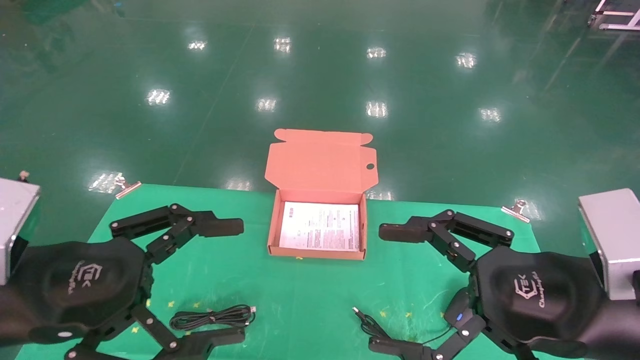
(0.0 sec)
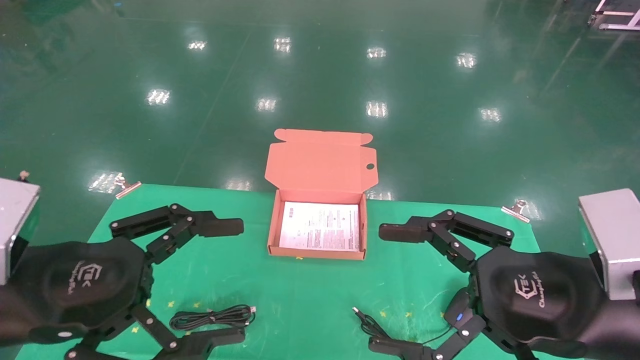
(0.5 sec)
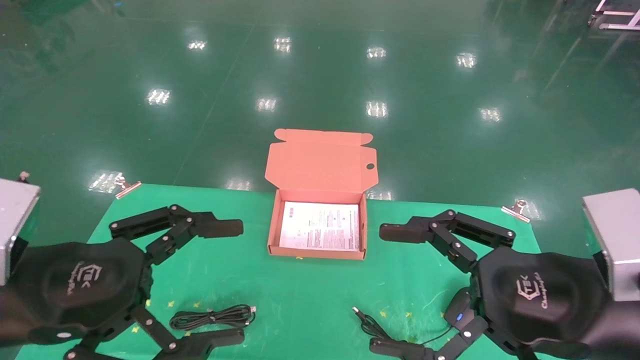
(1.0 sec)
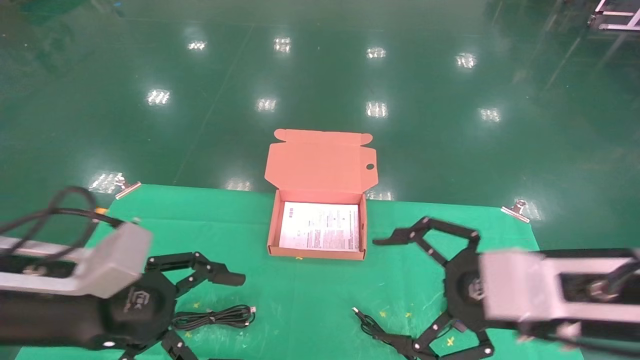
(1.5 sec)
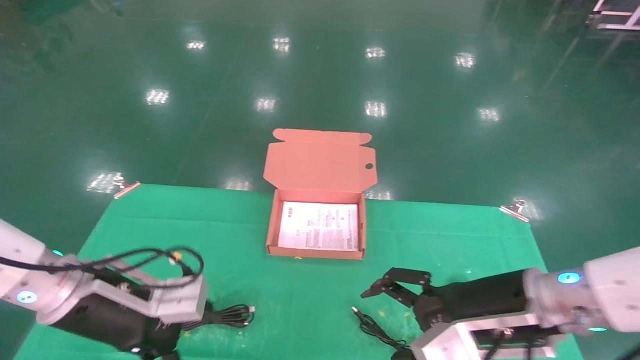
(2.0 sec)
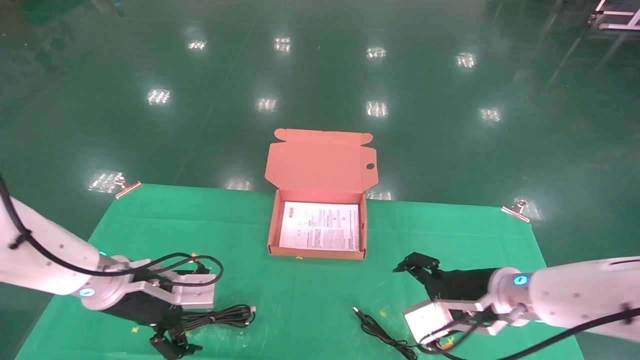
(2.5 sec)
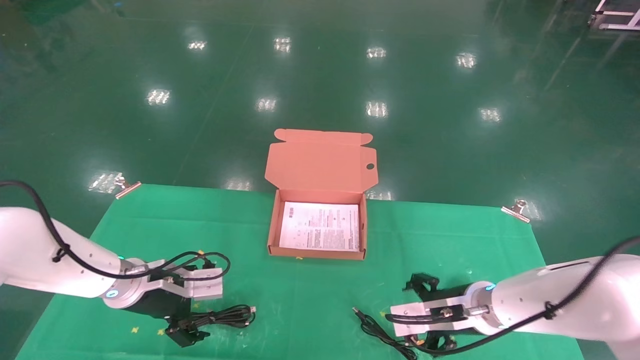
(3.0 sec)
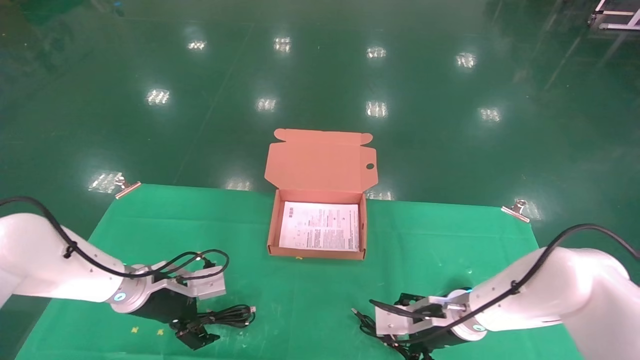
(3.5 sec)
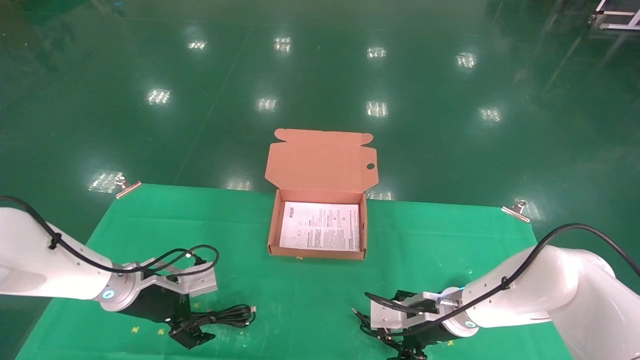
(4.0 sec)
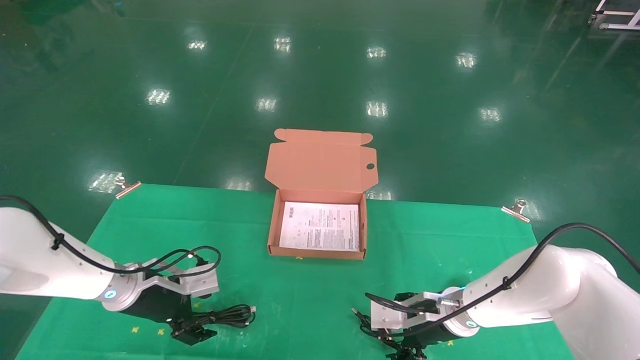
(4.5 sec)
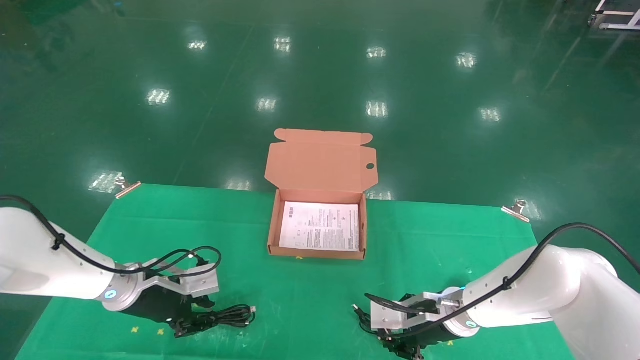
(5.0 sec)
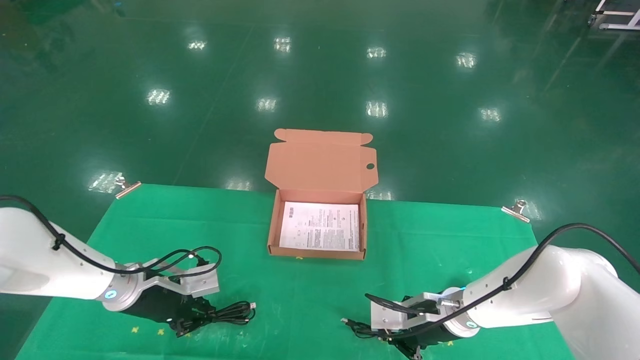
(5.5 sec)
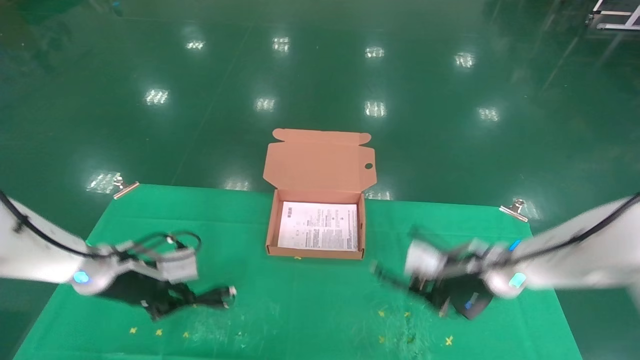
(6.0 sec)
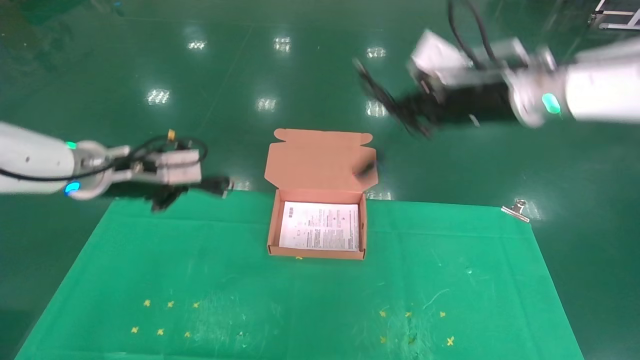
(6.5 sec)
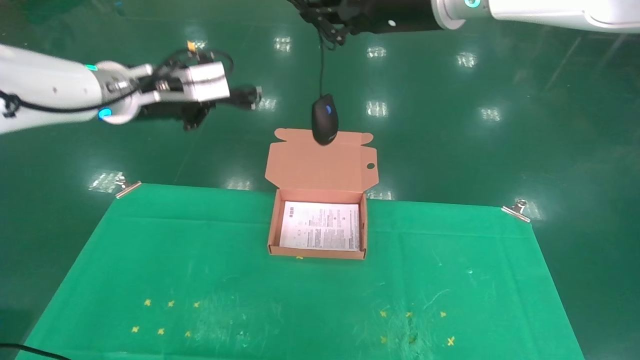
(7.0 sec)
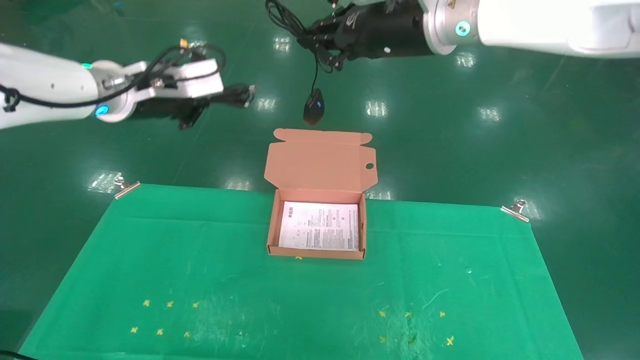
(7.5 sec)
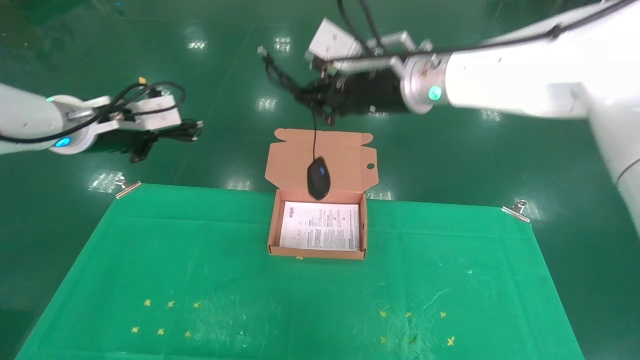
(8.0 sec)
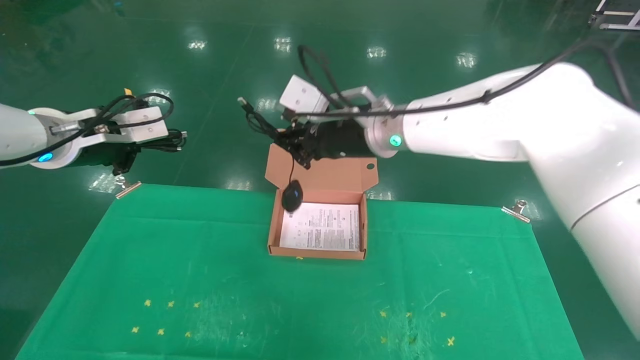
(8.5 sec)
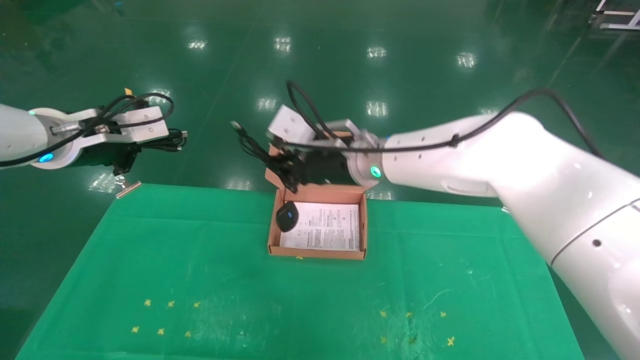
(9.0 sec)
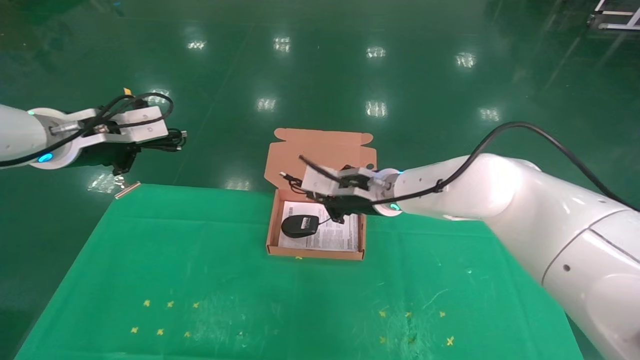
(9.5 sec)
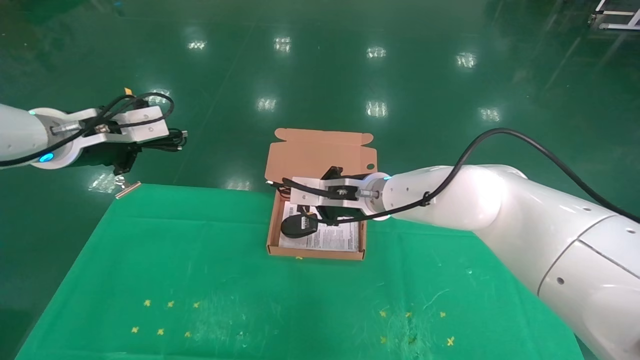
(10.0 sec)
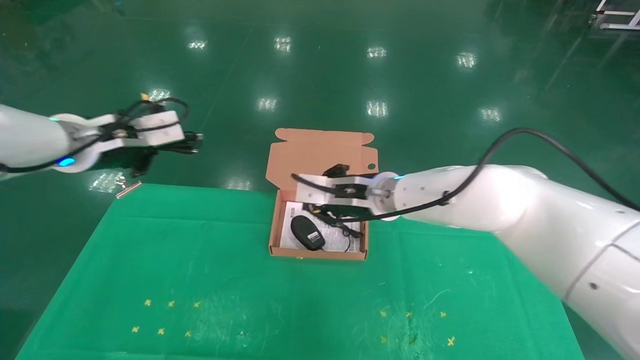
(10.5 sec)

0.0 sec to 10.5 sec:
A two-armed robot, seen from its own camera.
Task of the whole recording: grasp data cable left put into box grasp mouse right put into box.
Step, 1.0 sec to 6.0 sec: Grab and pick up both the mouse and power cord from the accessory packaging area at the same time.
0.0 sec to 2.0 sec: The grippers both shift forward and downward by about 10 cm.
2.0 sec to 4.0 sec: Both grippers move forward and downward, roughly 15 cm.
4.0 sec to 6.5 sec: The left gripper travels upward by approximately 20 cm, and closes its fingers. Meanwhile the right gripper shifts about 30 cm upward, and closes up.
6.5 sec to 8.5 sec: The left gripper shifts about 5 cm upward. The right gripper heads to the left, covering about 15 cm.
8.5 sec to 10.5 sec: The right gripper travels downward by about 10 cm.

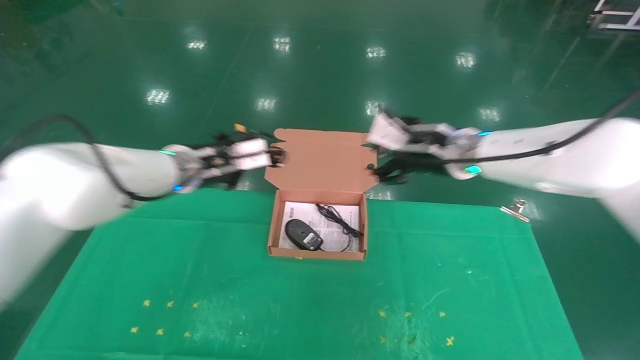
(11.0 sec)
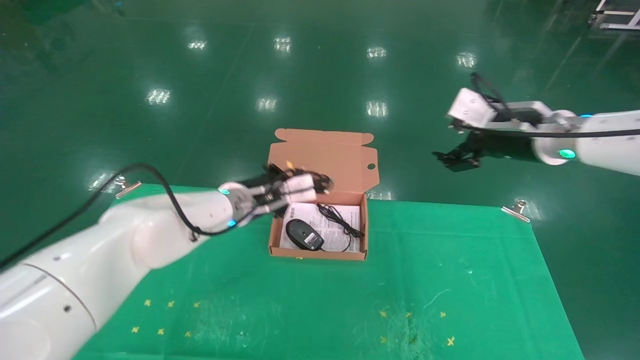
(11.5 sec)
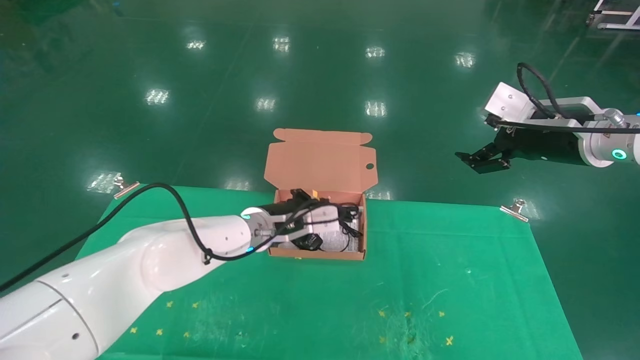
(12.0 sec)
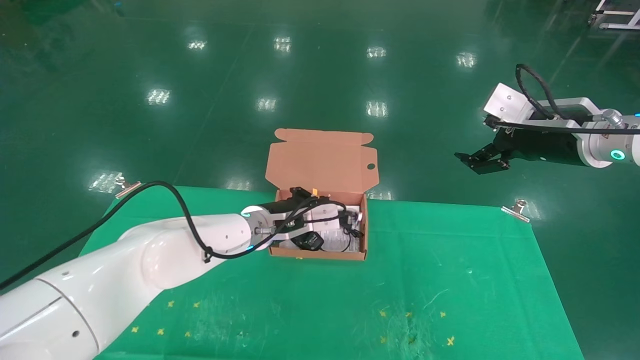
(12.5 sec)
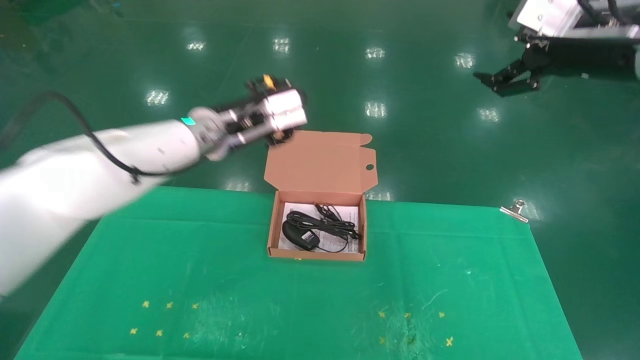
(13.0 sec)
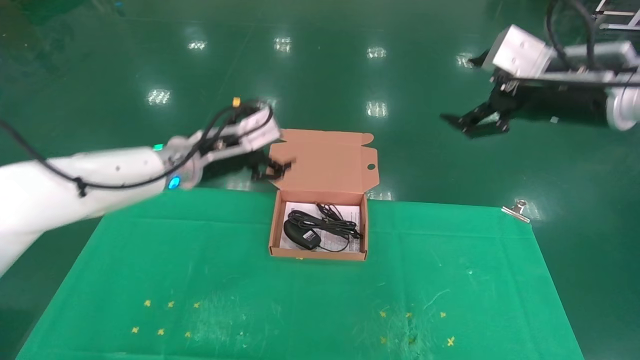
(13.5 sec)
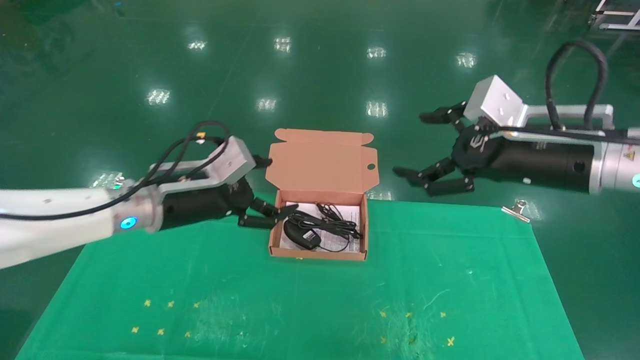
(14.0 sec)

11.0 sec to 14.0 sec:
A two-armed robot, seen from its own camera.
Task of the whole recording: grasp data cable left put into box grasp mouse right put into box.
Step, 11.0 sec to 13.0 sec: Place the mouse and power cord into the box.
11.0 sec to 12.5 sec: The right gripper heads to the right, covering some 15 cm, and opens up. Meanwhile the left gripper is displaced to the right and downward by about 15 cm.
12.5 sec to 14.0 sec: The left gripper travels to the left, backward and upward by roughly 15 cm, and opens its fingers. The right gripper travels backward and to the left by roughly 10 cm, and reaches approximately 5 cm upward, then returns.

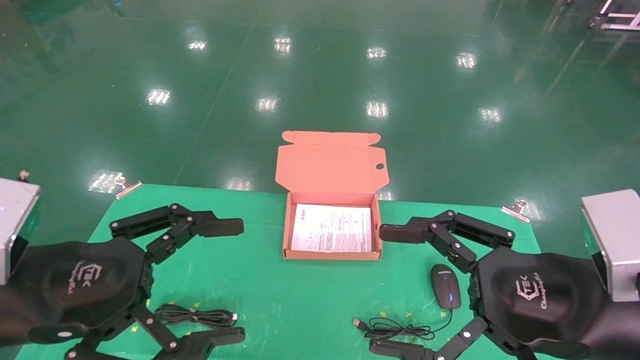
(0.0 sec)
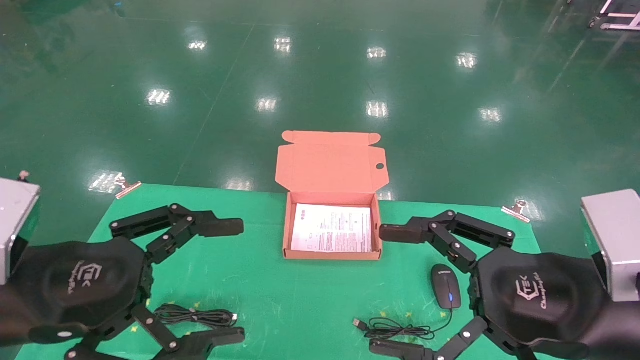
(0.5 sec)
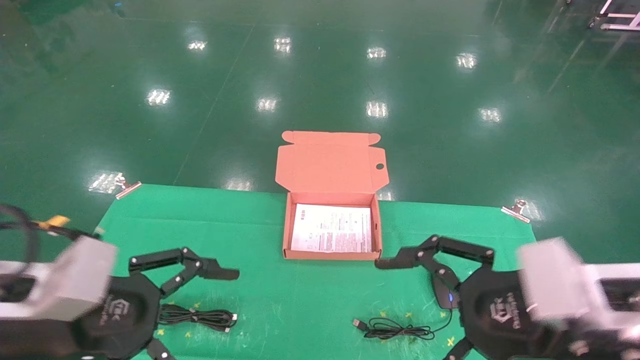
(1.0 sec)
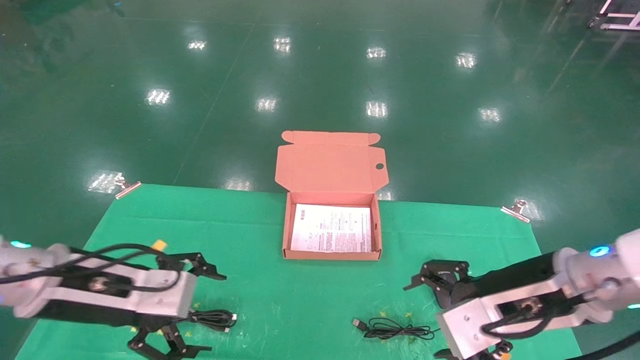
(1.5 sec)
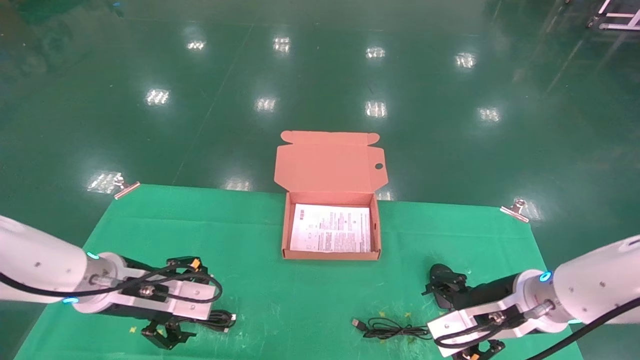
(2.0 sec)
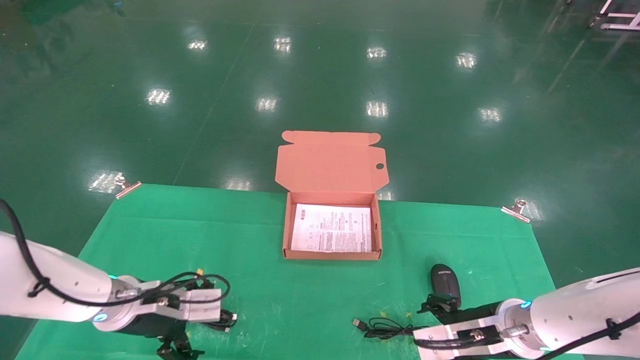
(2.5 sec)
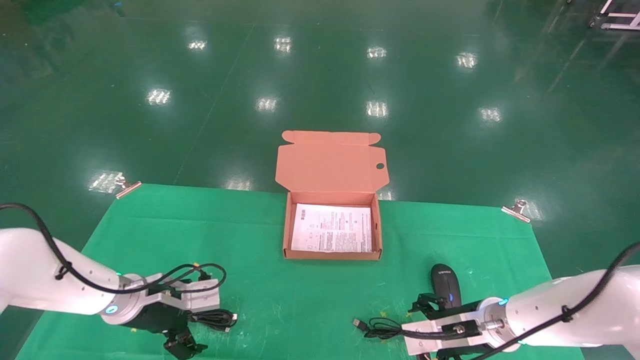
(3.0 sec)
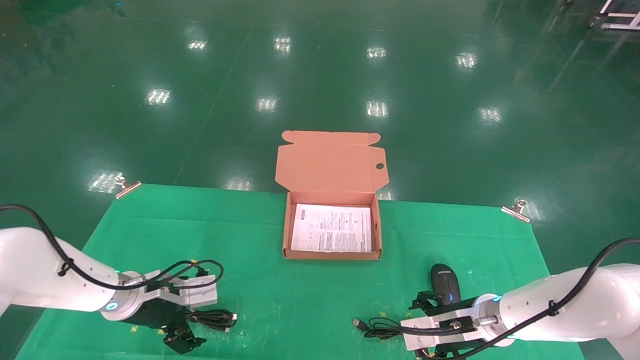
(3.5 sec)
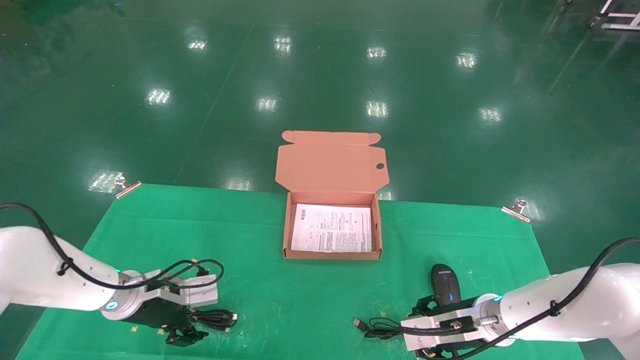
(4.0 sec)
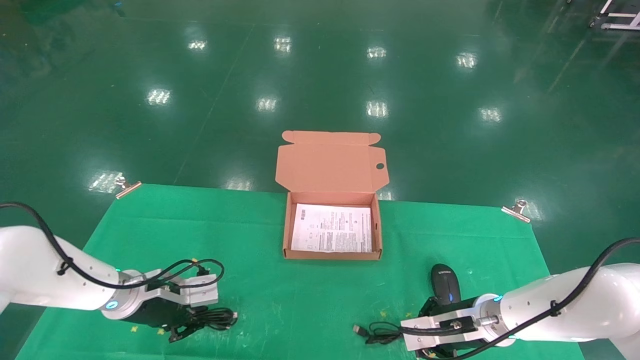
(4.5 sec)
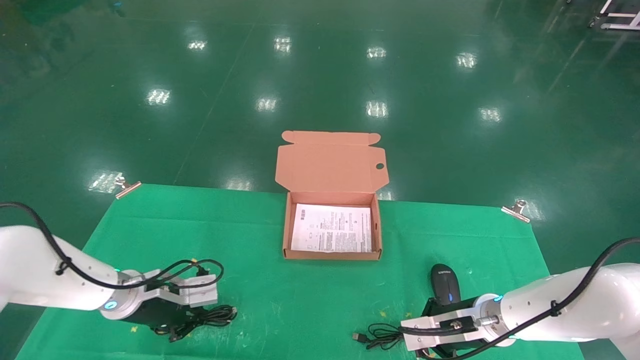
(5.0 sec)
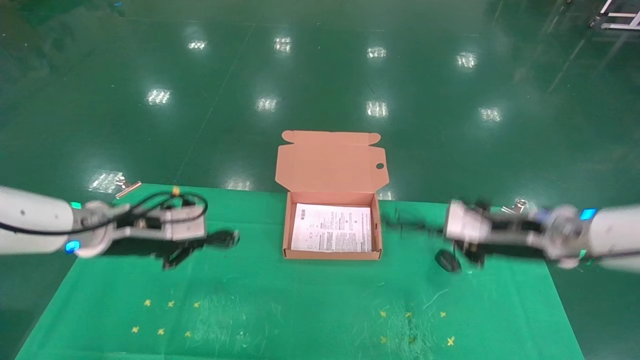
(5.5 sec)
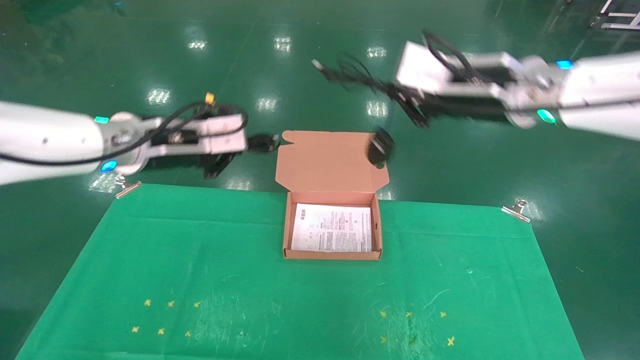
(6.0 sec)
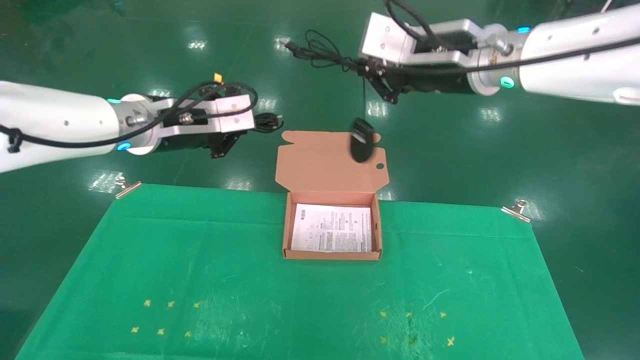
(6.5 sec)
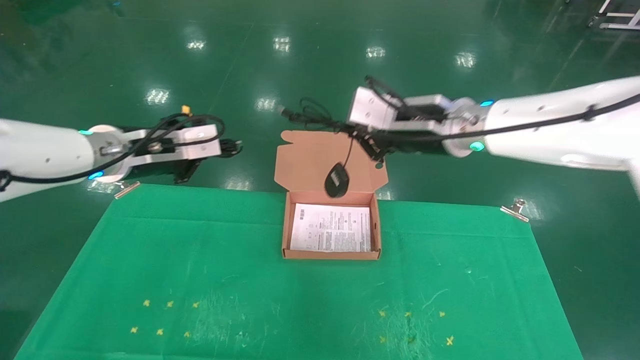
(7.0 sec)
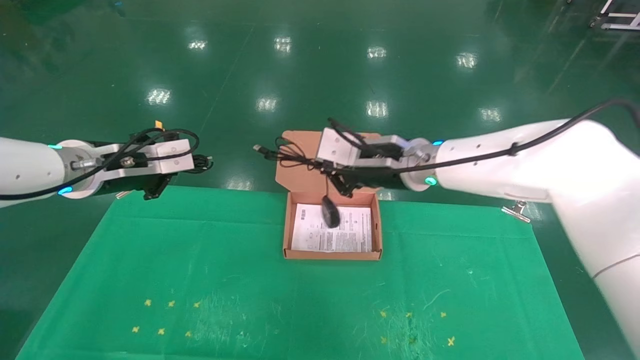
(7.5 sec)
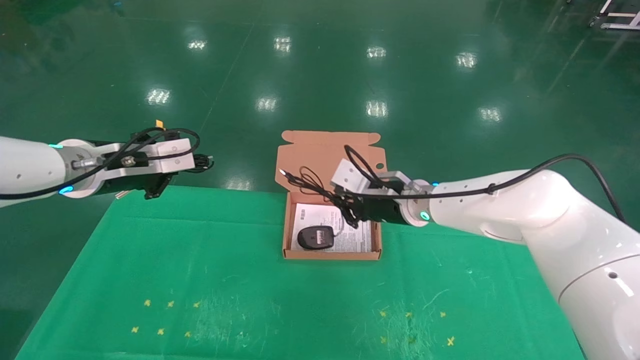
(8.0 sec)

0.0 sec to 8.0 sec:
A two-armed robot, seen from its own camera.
Task of the whole recording: grasp data cable left put into box grasp mouse right put into box.
Step, 1.0 sec to 5.5 sec: Grab and pick up both the mouse and power cord from the accessory packaging area at the same time.
0.0 sec to 2.0 sec: The two grippers go approximately 15 cm forward and downward.
2.0 sec to 4.0 sec: The right gripper is displaced downward and forward by about 10 cm, while the left gripper goes approximately 10 cm forward and downward.
4.0 sec to 6.0 sec: The two grippers go about 30 cm upward. The left gripper closes up; the right gripper closes up.
6.0 sec to 8.0 sec: The left gripper is displaced to the left by roughly 5 cm. The right gripper heads downward, forward and to the left, covering some 20 cm.
